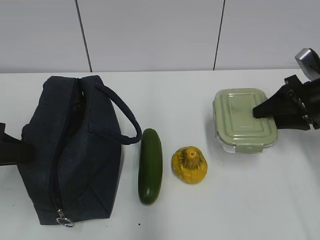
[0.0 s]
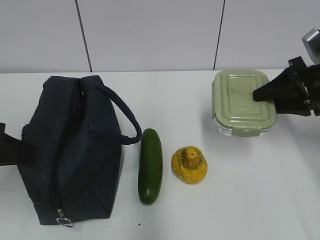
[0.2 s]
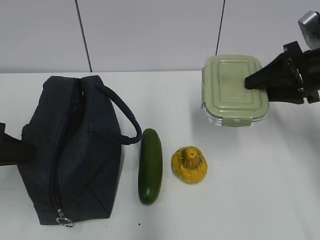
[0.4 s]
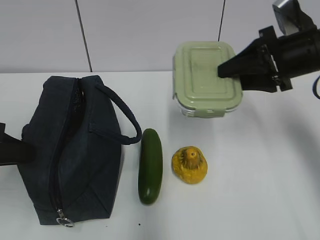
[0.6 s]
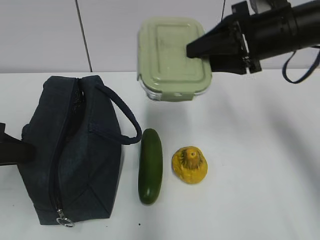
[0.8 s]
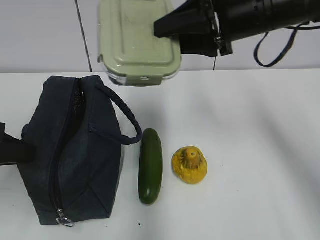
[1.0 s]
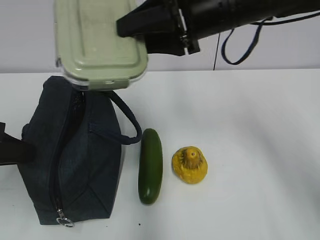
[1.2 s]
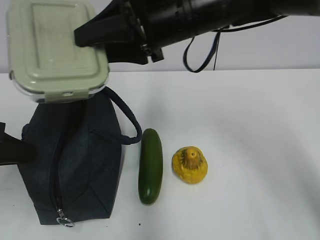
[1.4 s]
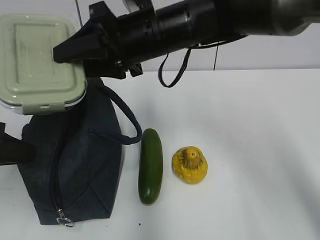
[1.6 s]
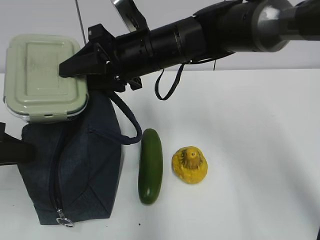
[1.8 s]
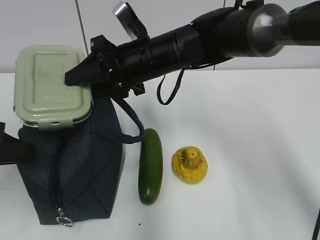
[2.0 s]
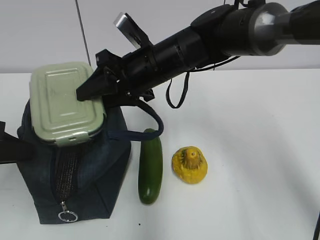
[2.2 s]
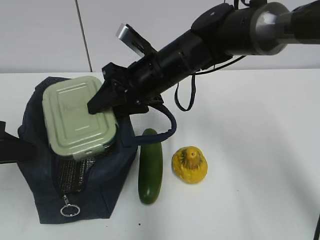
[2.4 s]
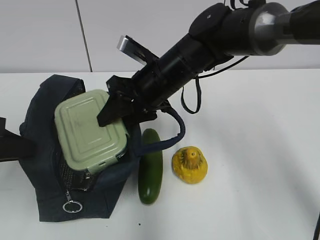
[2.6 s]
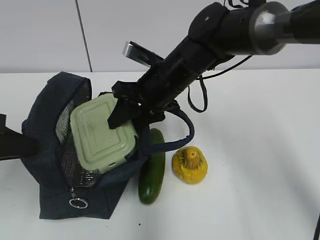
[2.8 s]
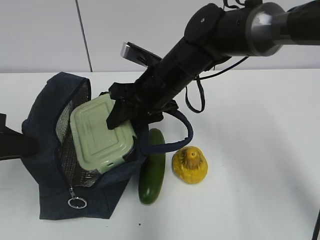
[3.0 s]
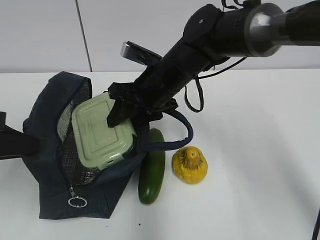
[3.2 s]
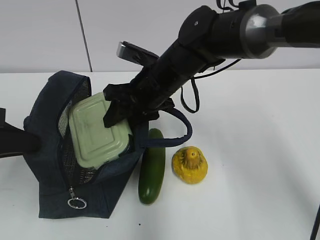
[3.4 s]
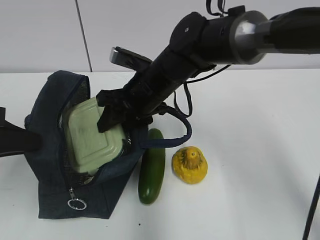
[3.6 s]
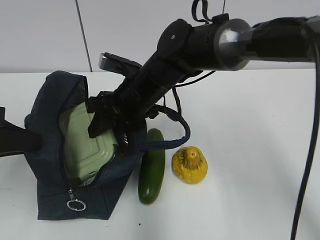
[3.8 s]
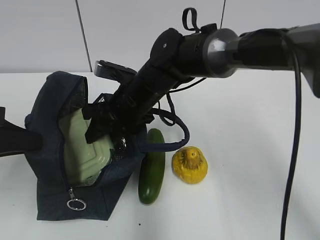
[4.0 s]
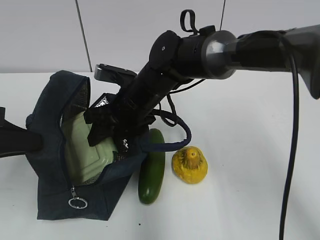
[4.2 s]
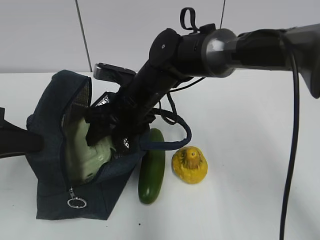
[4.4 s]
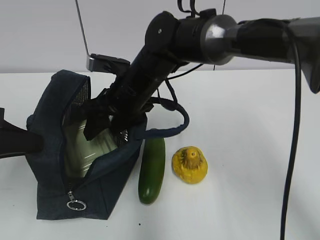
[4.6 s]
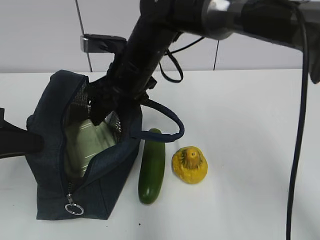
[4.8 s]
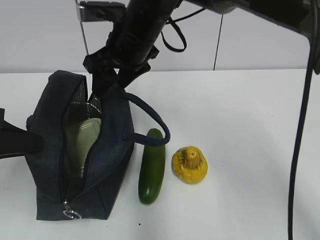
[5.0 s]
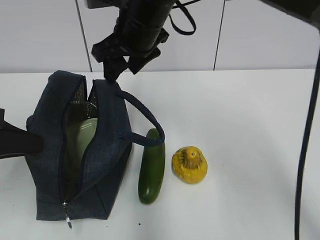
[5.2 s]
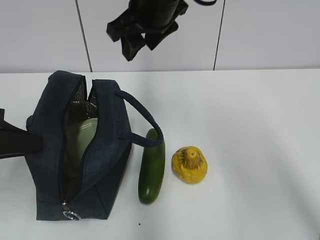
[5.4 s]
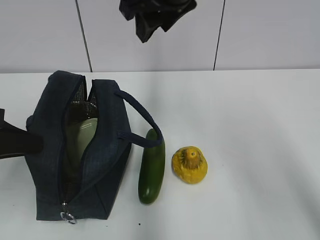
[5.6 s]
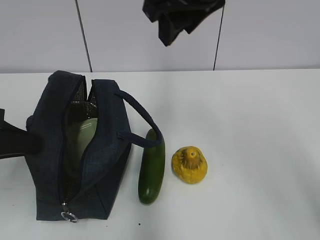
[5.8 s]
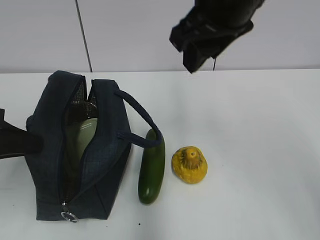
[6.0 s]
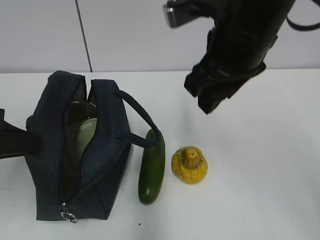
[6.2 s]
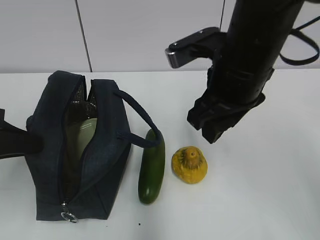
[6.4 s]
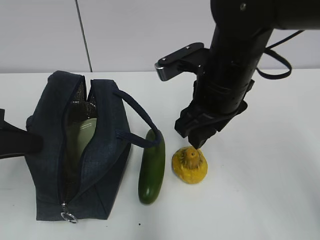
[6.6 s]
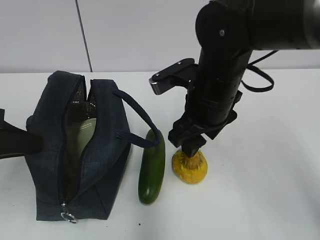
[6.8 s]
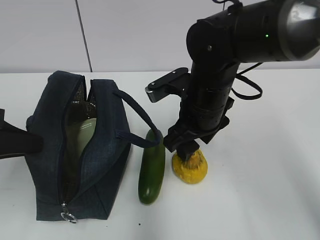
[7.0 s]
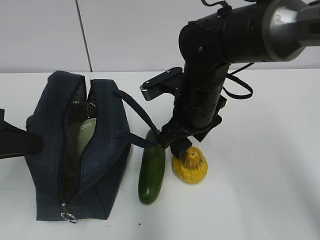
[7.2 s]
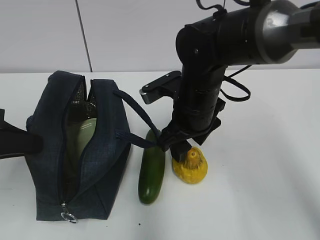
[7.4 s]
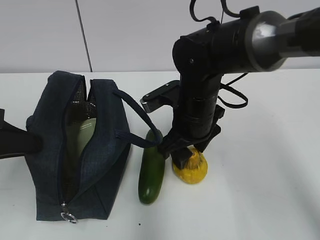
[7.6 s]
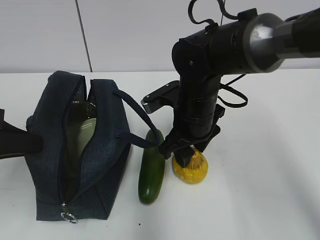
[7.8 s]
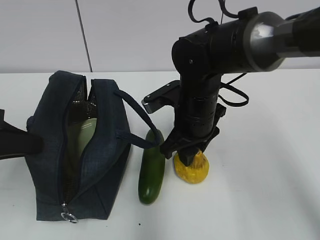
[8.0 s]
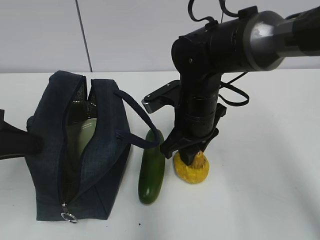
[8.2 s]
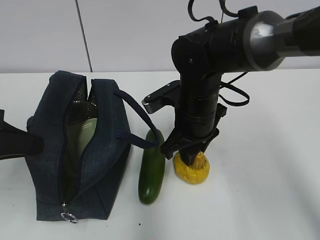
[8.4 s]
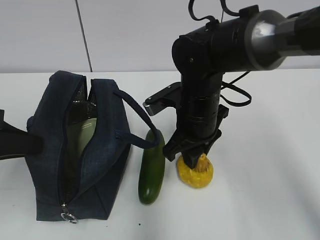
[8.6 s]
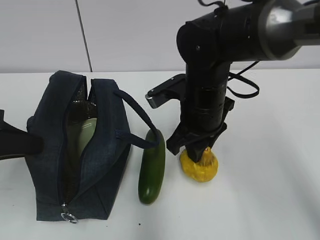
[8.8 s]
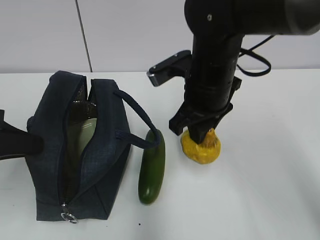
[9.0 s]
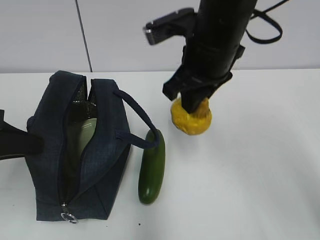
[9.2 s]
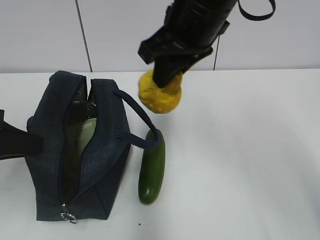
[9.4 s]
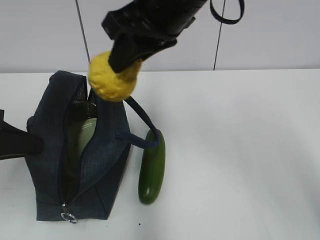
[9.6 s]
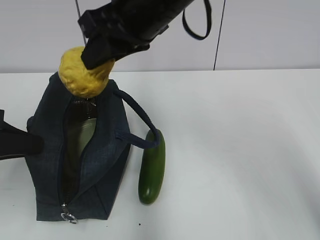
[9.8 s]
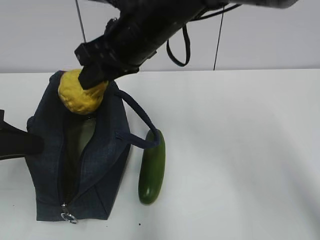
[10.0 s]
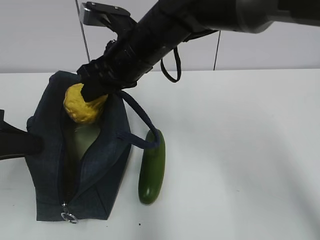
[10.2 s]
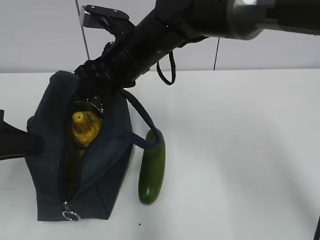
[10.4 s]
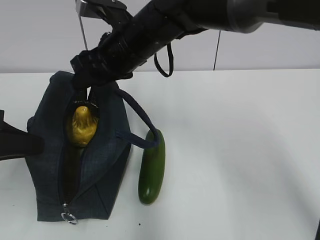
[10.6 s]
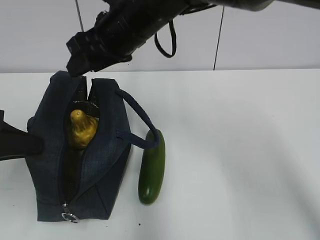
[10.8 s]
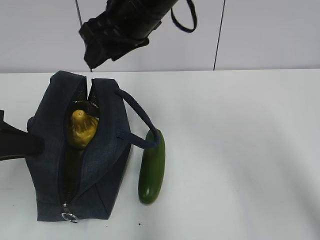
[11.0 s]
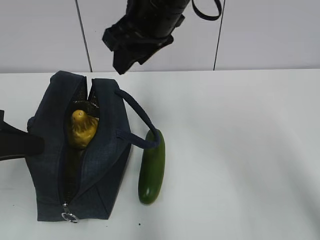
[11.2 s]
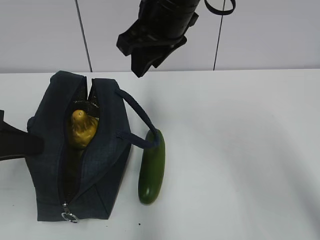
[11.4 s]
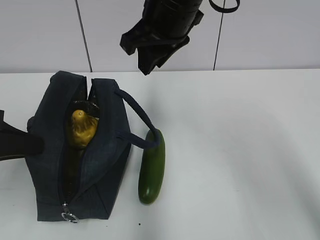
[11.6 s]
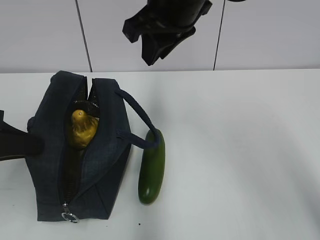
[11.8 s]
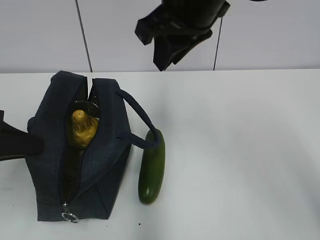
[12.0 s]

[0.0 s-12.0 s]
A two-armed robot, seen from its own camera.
Step, 2.6 to 5.0 s: Place it into the bag with your right hand.
Step, 5.2 to 8.2 s: Grab the pear with your right hand.
Step, 8.4 to 10.8 s: Place it into the bag with your right hand.
0.0 to 1.6 s: The right gripper is displaced to the left by roughly 30 cm.
1.6 to 3.0 s: The right gripper moves downward, approximately 10 cm.
3.0 to 4.4 s: The right gripper shifts by some 5 cm.
4.4 to 6.0 s: The right gripper is displaced upward, to the right and backward by roughly 25 cm.
6.0 to 7.6 s: The right gripper moves downward, approximately 20 cm.
7.6 to 9.0 s: The right gripper shifts about 5 cm upward, and closes its fingers.
9.0 to 10.4 s: The right gripper moves to the left and forward, some 10 cm, and goes upward and returns, roughly 10 cm each way.
10.4 to 12.0 s: The right gripper heads upward, to the right and backward, covering roughly 15 cm.

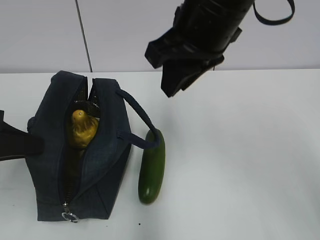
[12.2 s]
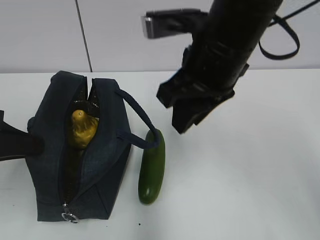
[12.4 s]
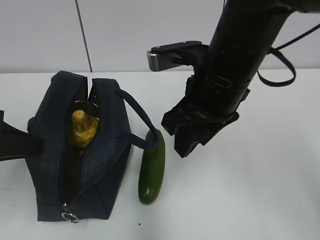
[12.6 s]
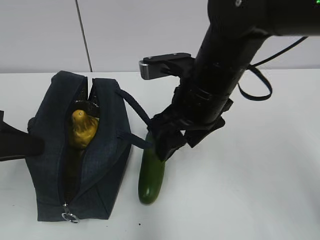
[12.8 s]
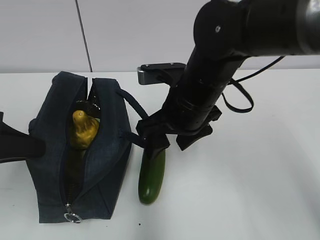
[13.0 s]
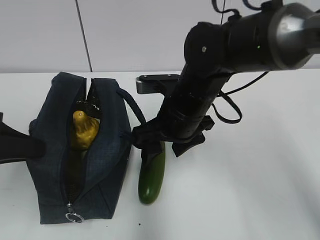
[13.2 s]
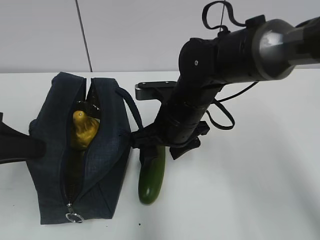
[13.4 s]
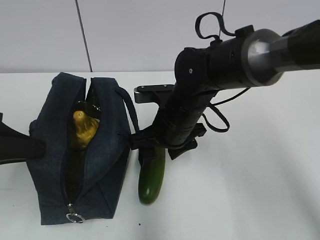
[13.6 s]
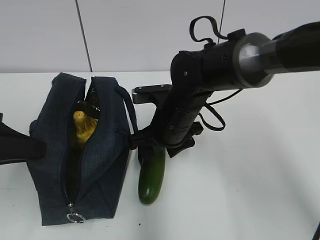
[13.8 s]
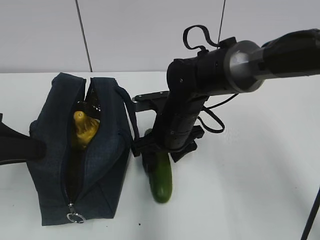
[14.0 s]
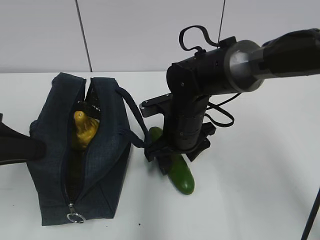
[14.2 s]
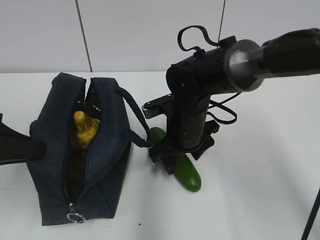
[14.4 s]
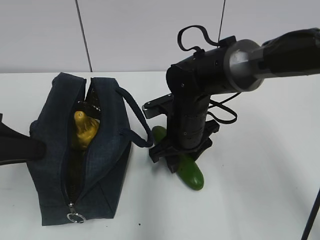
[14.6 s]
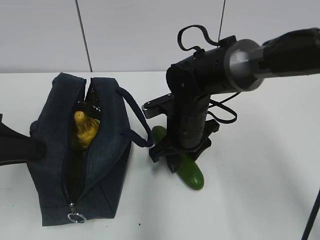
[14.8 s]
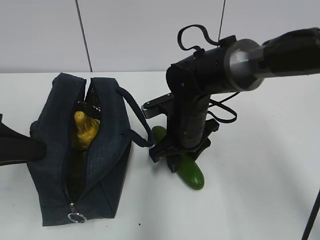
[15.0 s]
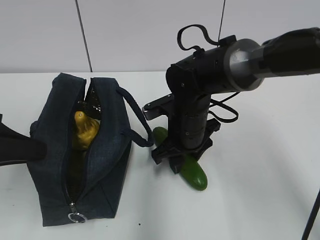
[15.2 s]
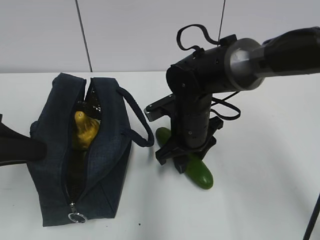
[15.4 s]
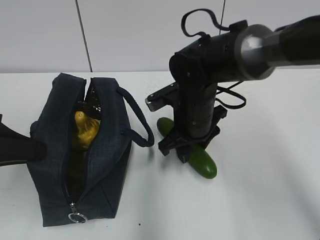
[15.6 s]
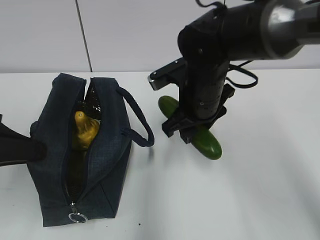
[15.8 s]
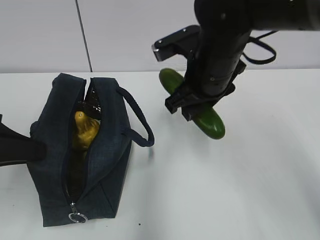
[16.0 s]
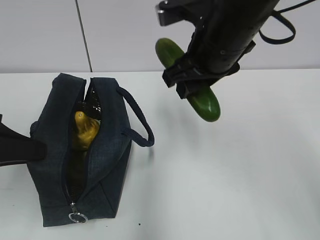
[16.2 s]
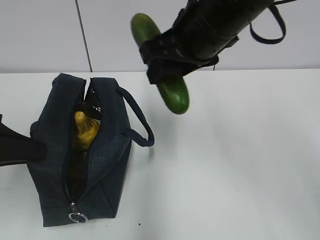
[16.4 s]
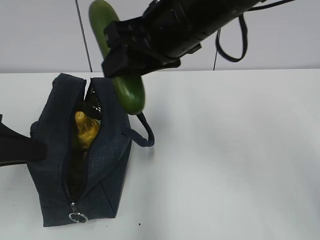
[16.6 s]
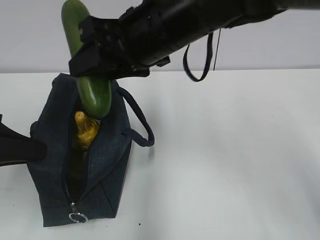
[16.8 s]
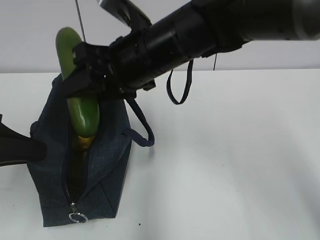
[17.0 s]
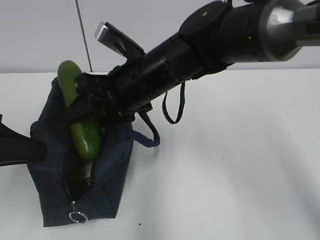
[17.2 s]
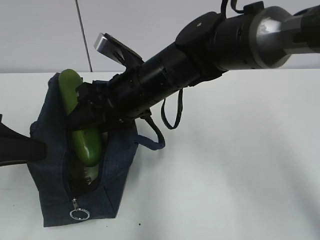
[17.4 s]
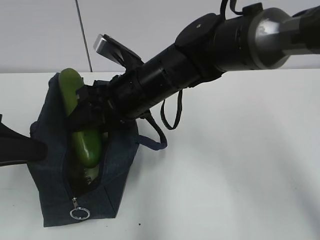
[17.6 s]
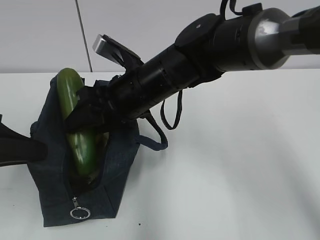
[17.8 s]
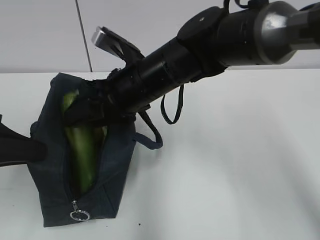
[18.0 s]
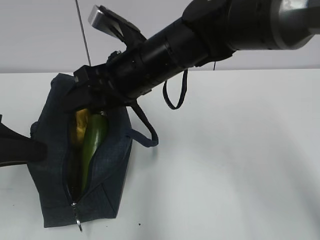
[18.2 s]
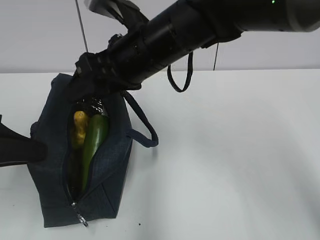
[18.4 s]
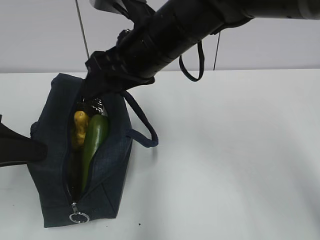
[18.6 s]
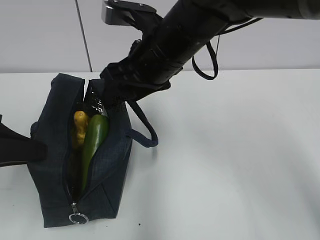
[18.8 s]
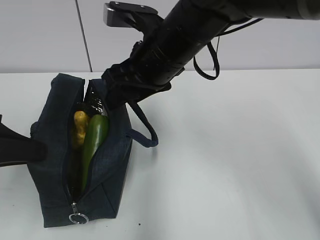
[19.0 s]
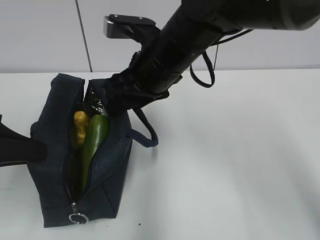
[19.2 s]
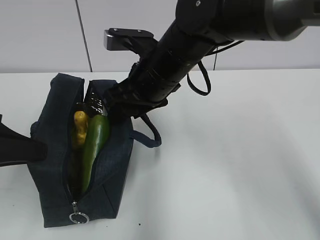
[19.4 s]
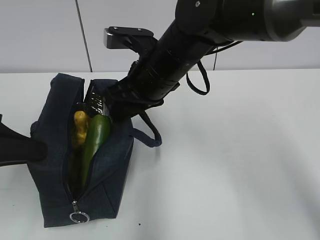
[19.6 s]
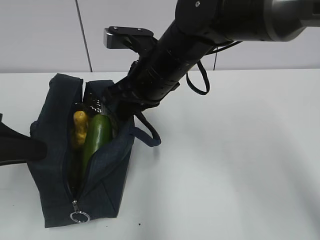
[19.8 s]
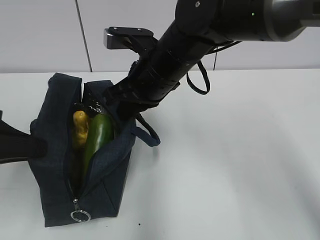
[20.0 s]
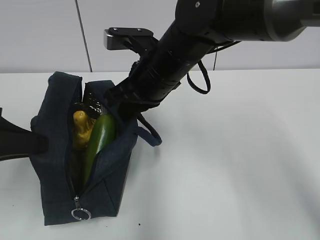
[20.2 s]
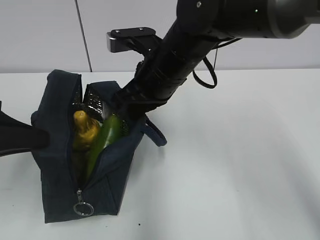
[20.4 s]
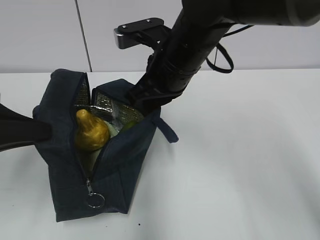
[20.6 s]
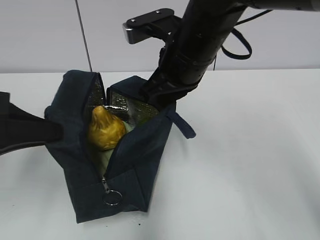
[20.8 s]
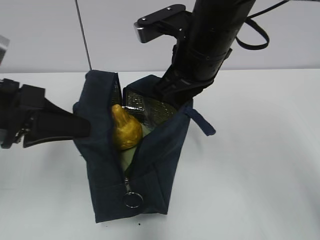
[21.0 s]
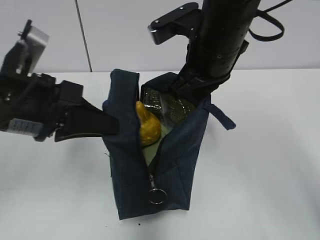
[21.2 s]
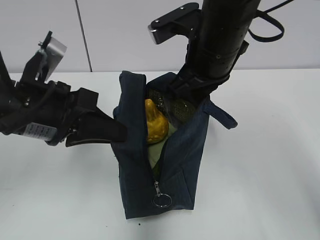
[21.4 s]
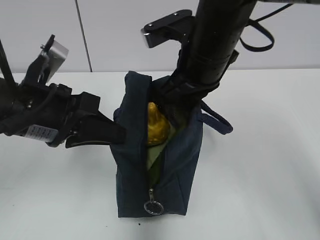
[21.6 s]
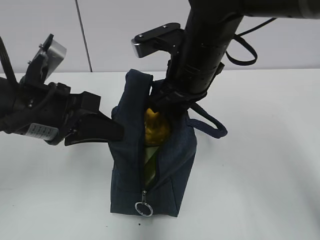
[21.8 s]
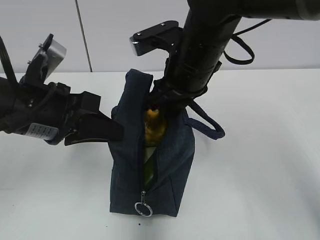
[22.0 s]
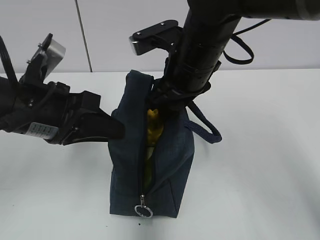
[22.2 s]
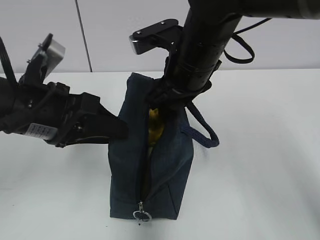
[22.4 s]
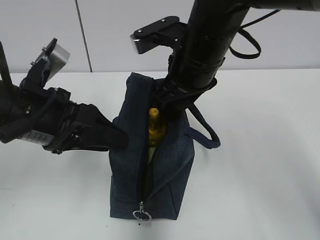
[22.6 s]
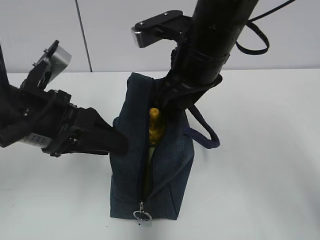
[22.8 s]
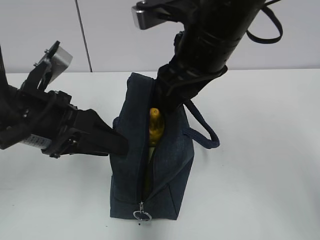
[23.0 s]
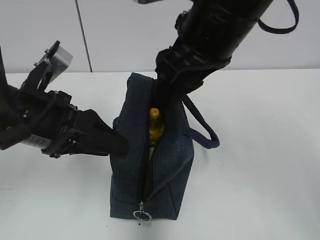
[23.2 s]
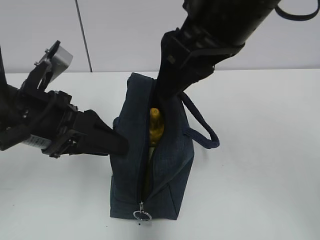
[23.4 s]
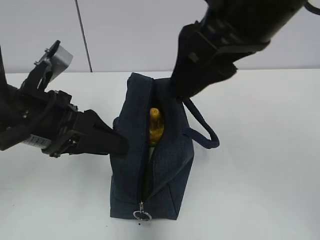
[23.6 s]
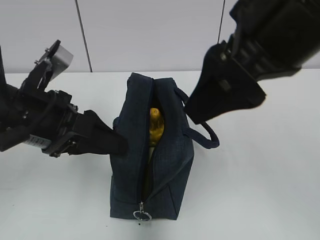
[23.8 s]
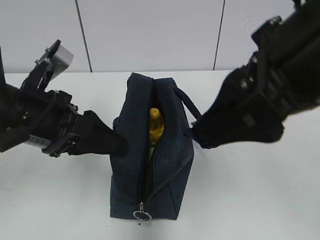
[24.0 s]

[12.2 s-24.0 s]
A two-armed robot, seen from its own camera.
Step, 12.2 to 15.0 s: Grab the cucumber with your right hand.
Step, 15.2 to 18.2 s: Place it into the bag with your right hand.
Step, 18.6 to 19.8 s: Grab the lunch bag with your right hand.
Step, 20.0 to 20.8 s: Move the lunch bag to the left.
Step, 21.0 to 21.6 s: Move the lunch bag to the right.
12.2 to 13.6 s: The right gripper moves downward, approximately 20 cm, and opens.
15.2 to 16.6 s: The right gripper shifts some 20 cm upward.
16.6 to 18.2 s: The right gripper heads downward, covering some 5 cm.
18.2 to 19.6 s: The right gripper closes its fingers.
19.6 to 21.0 s: The right gripper heads to the right, covering some 5 cm, and closes up. The left gripper moves roughly 5 cm.
21.0 to 22.6 s: The left gripper ends up approximately 5 cm from where it was, and opens. The right gripper opens its fingers.
22.6 to 24.0 s: The right gripper is displaced backward and upward by about 15 cm.
